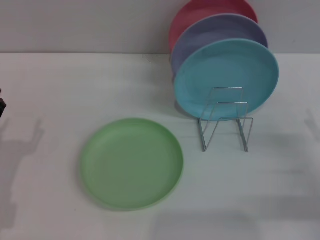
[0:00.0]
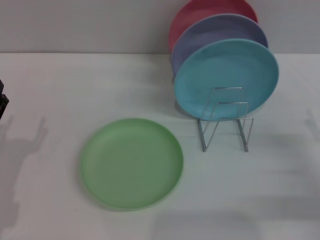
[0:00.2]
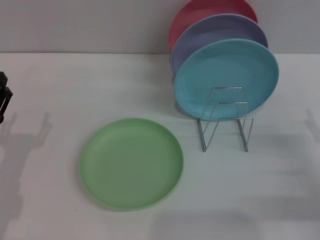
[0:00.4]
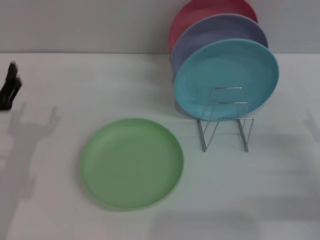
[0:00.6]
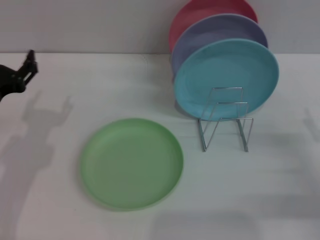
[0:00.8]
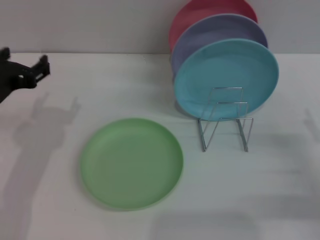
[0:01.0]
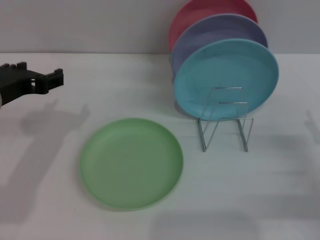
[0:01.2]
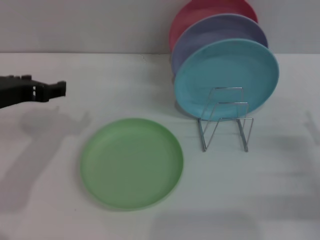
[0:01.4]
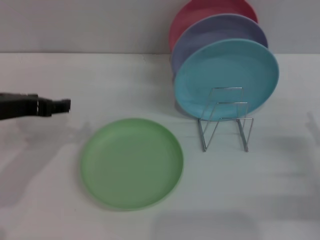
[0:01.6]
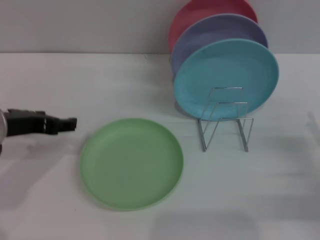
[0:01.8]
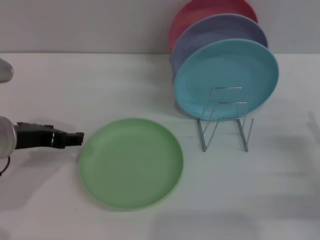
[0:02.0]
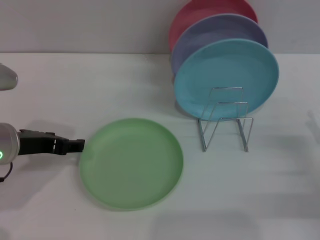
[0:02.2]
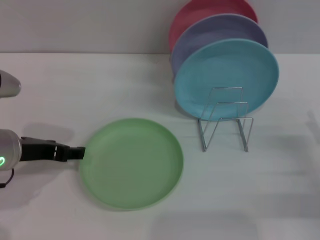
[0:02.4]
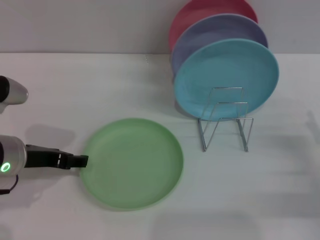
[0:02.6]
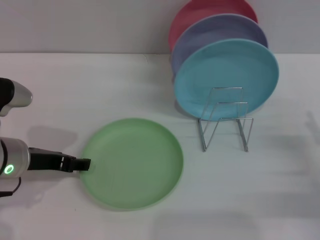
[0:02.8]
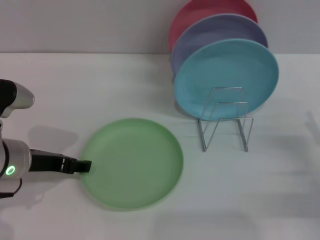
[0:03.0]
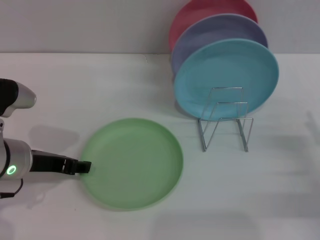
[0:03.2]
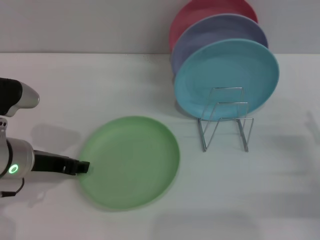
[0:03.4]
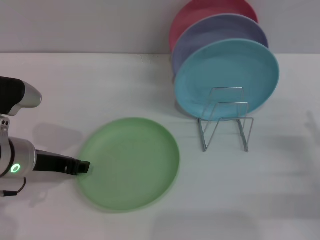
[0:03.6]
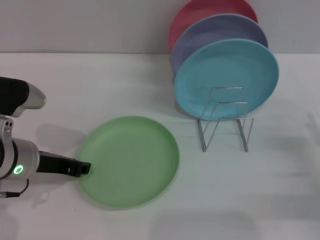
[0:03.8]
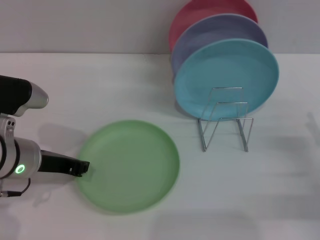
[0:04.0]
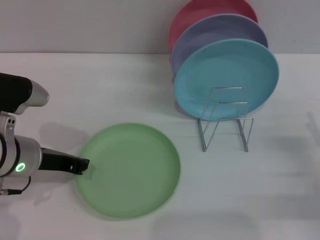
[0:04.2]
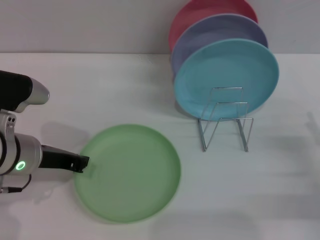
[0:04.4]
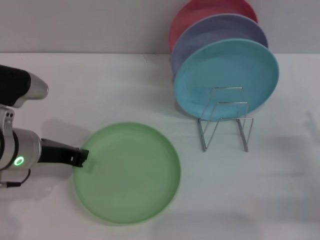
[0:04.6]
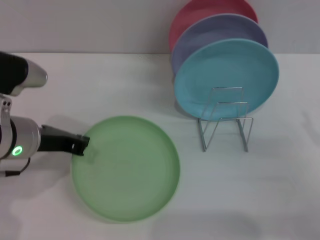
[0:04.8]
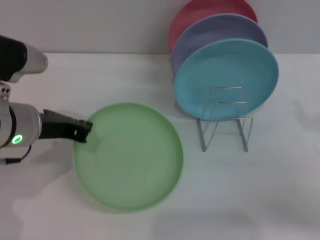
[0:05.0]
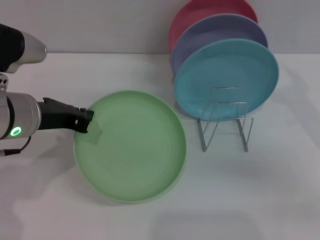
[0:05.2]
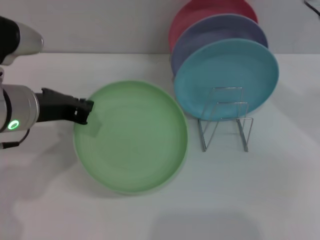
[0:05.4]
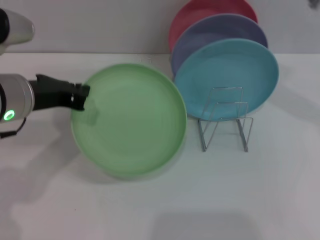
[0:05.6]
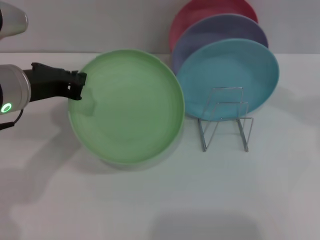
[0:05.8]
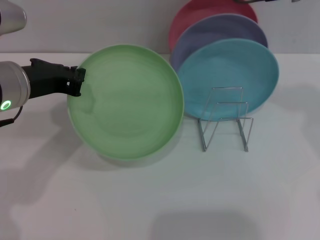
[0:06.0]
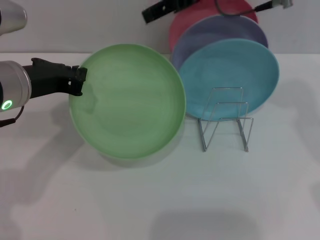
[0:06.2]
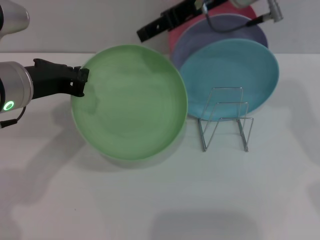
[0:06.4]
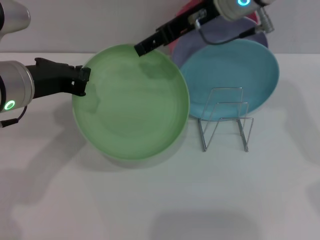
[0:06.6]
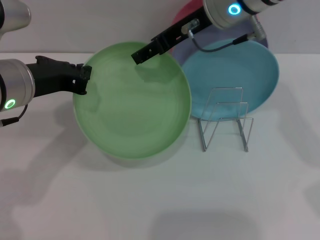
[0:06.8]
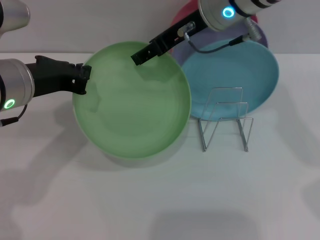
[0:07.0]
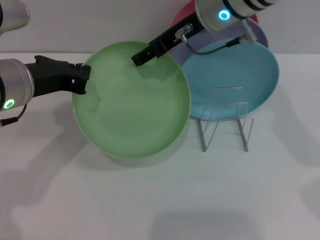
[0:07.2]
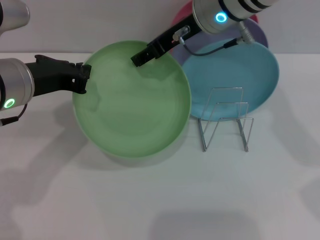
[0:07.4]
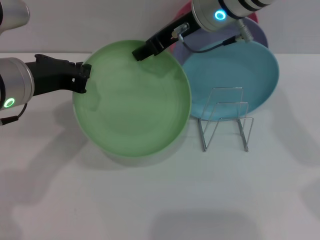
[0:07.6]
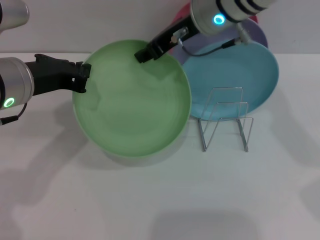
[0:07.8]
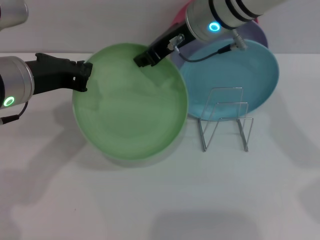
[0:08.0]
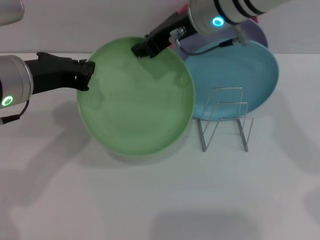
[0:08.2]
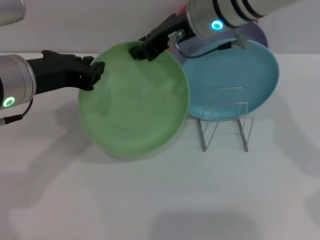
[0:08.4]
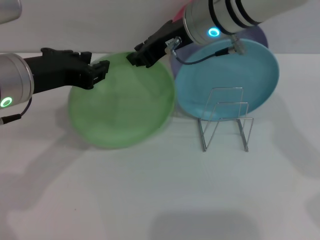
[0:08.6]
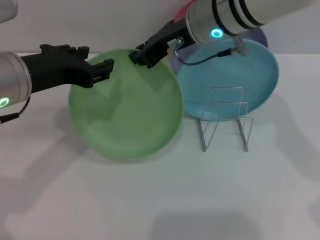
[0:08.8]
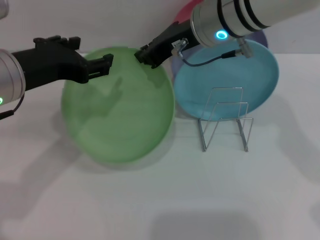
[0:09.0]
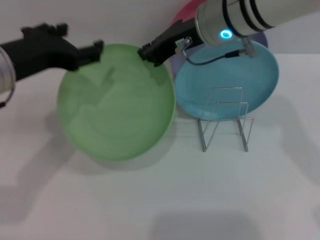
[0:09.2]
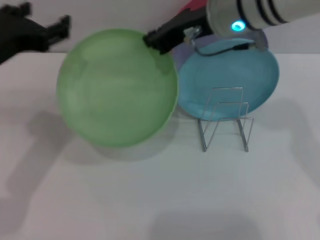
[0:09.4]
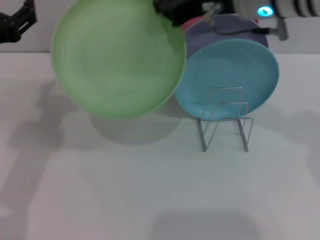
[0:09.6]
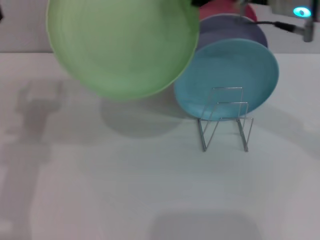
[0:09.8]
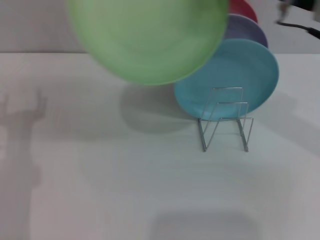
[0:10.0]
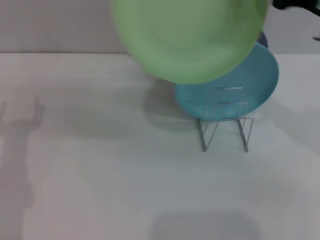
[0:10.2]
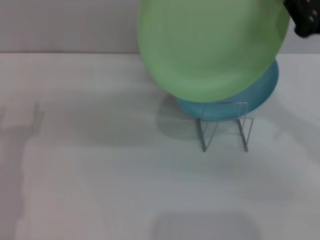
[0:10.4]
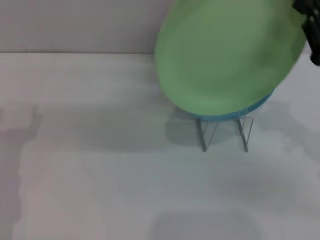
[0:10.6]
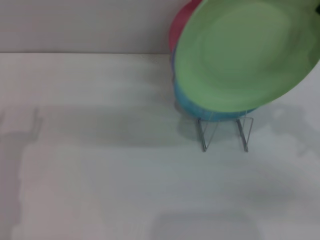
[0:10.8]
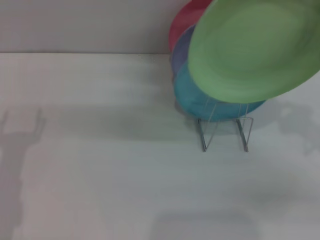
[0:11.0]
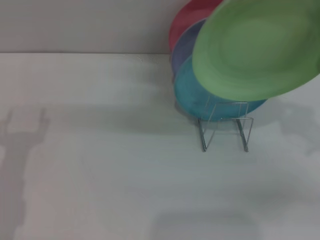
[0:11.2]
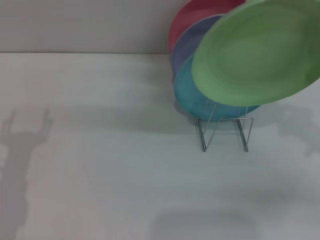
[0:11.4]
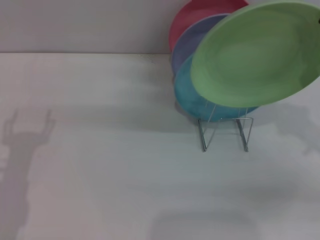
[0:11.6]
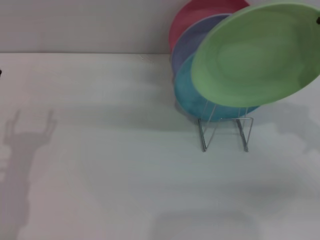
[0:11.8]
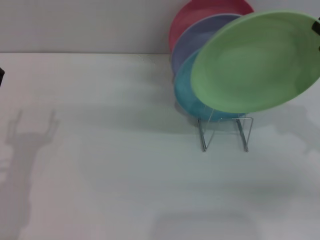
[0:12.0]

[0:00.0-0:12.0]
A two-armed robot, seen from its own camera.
Task of the whole recording: Grip the plate with one hand, pass it to the other, then set it on the shelf.
Step, 0:00.0 to 0:04.8: Pick up the plate with the left gripper.
Step, 0:05.0 to 0:09.6: Pass the plate from the left gripper to the right gripper.
0:00.0 to 0:01.6: The left gripper goes about 15 cm upward and forward.
0:01.6 to 0:03.0: The left gripper heads downward, covering approximately 5 cm.
0:03.0 to 0:04.4: The left gripper closes its fingers.
0:04.4 to 0:06.0: The left gripper goes approximately 10 cm upward; the right gripper moves upward, to the left and forward, about 40 cm.
0:06.0 to 0:07.6: The right gripper goes approximately 10 cm to the left and downward.
0:07.6 to 0:09.0: The left gripper opens up, while the right gripper closes its fingers.
0:09.0 to 0:10.4: The left gripper moves downward, to the left and backward, approximately 15 cm, while the right gripper heads to the right and backward, covering roughly 20 cm.
0:10.4 to 0:12.0: The right gripper shifts approximately 5 cm downward.

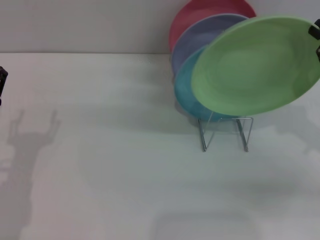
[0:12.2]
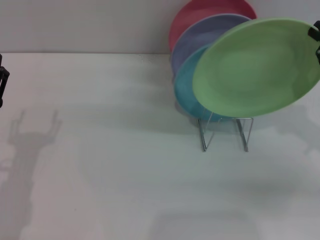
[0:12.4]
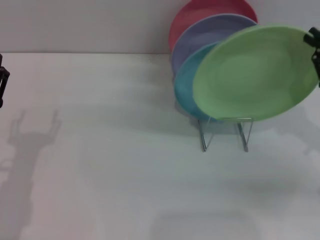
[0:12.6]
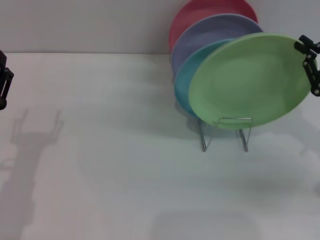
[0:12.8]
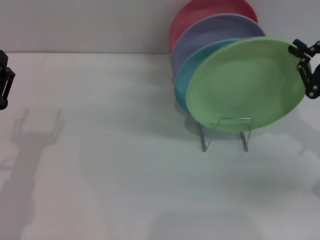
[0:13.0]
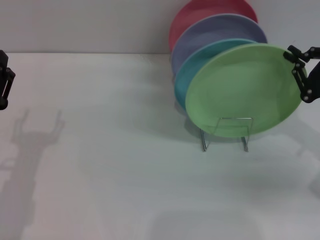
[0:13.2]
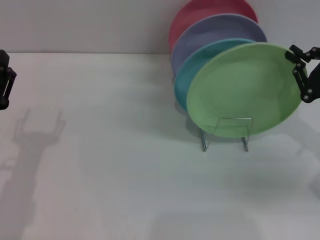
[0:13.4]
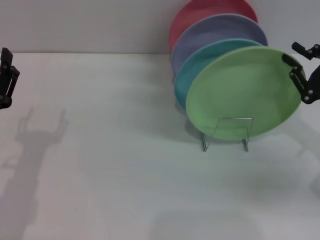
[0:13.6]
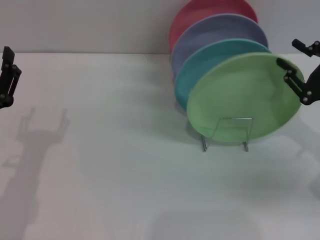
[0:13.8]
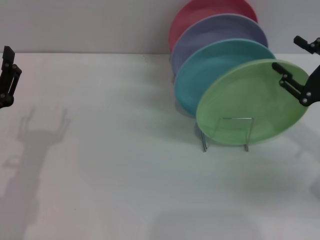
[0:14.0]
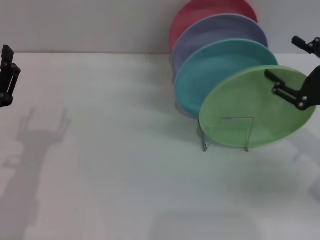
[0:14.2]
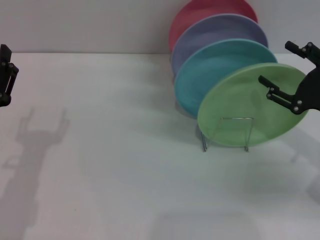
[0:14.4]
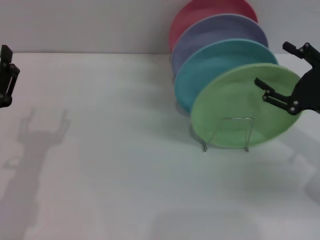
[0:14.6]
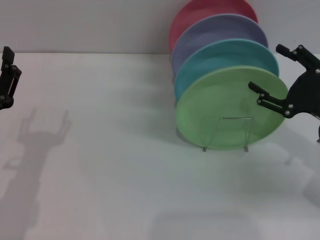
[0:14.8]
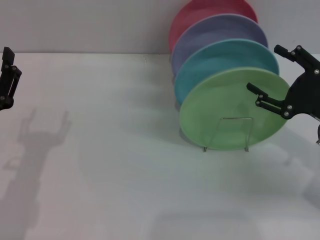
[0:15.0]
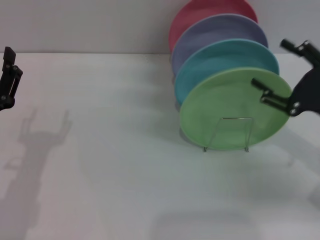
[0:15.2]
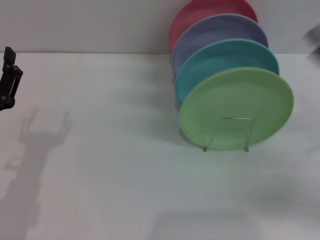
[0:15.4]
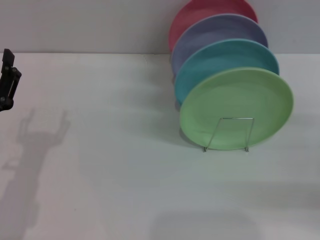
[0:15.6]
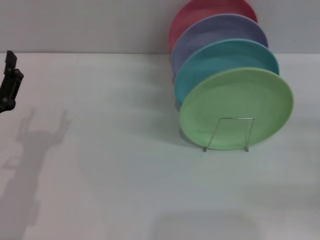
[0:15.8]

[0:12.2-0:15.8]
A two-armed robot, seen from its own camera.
Task of the whole recording: Grip the plate with one hand, pass it to the other, then set it on the shelf.
0:12.2 to 0:14.0: The right gripper opens its fingers.
0:14.0 to 0:15.8: The right gripper heads to the right, covering roughly 10 cm, and opens.

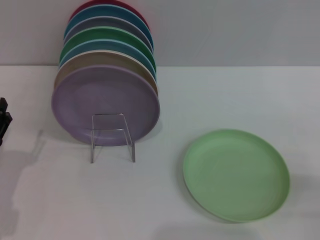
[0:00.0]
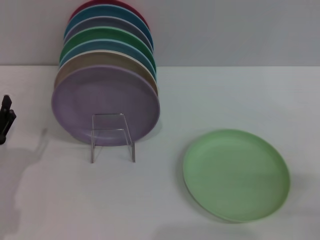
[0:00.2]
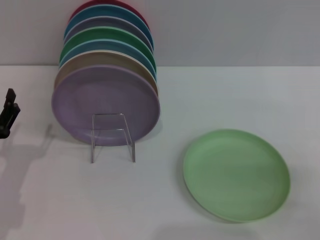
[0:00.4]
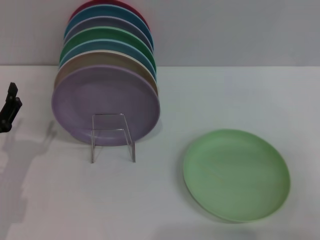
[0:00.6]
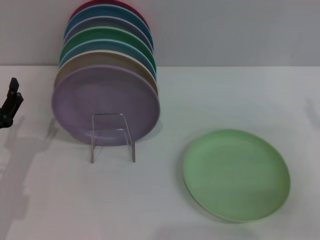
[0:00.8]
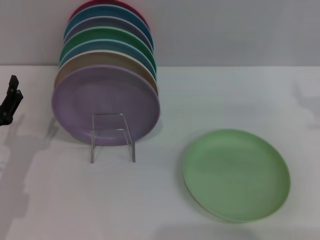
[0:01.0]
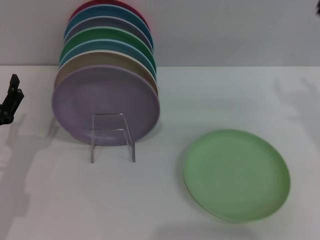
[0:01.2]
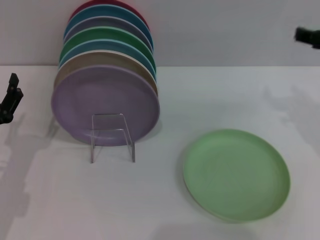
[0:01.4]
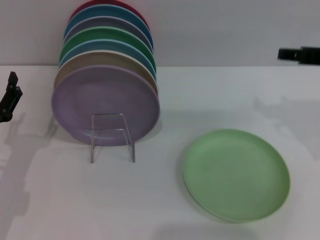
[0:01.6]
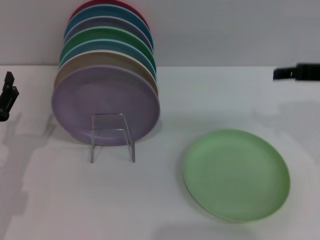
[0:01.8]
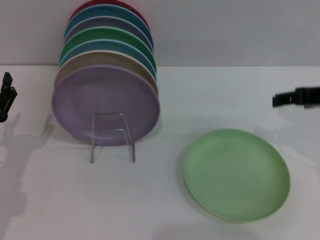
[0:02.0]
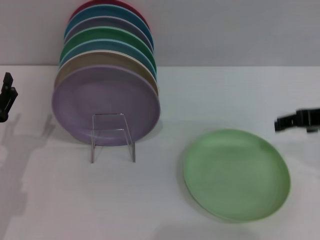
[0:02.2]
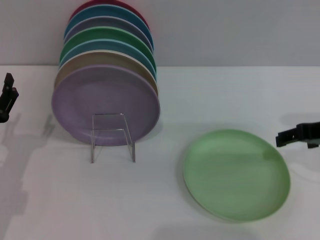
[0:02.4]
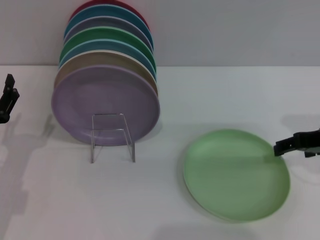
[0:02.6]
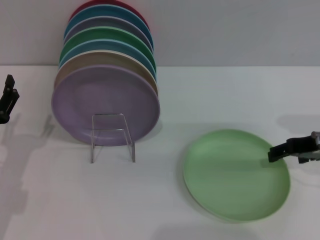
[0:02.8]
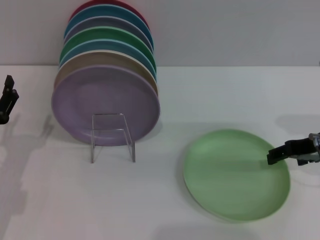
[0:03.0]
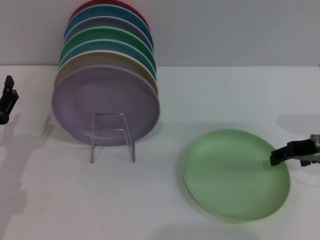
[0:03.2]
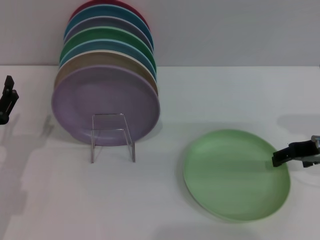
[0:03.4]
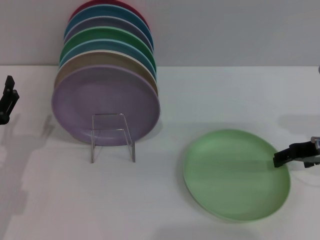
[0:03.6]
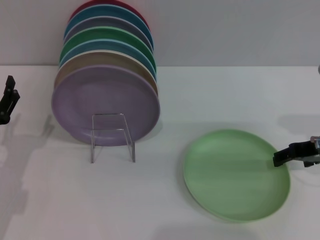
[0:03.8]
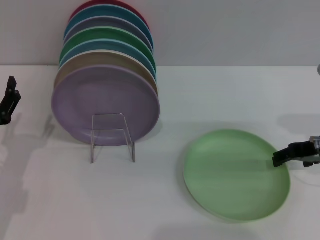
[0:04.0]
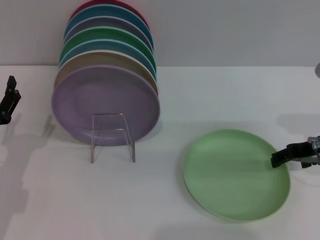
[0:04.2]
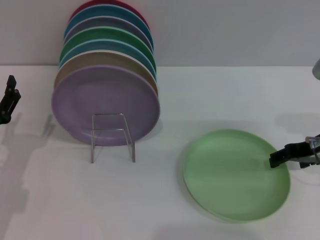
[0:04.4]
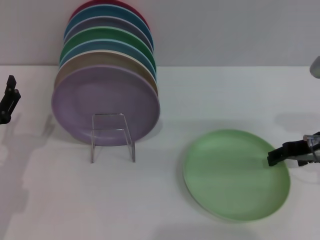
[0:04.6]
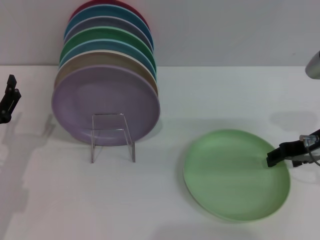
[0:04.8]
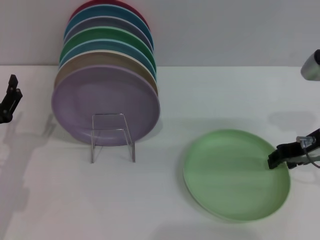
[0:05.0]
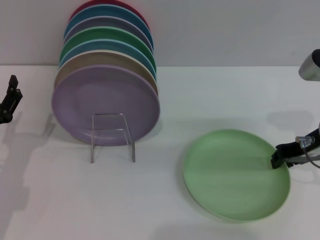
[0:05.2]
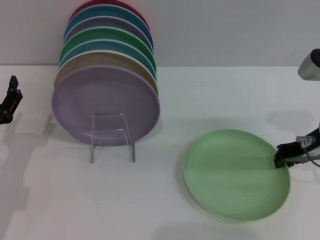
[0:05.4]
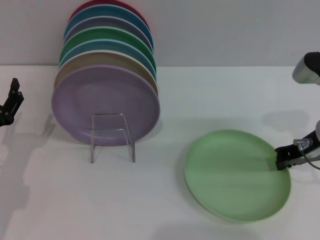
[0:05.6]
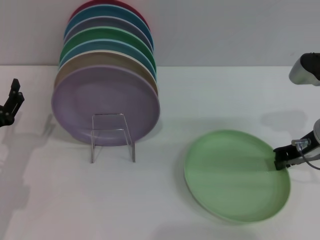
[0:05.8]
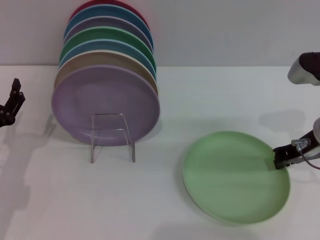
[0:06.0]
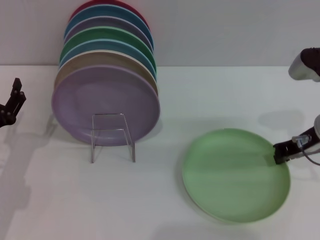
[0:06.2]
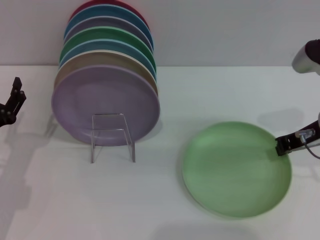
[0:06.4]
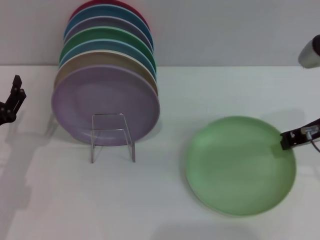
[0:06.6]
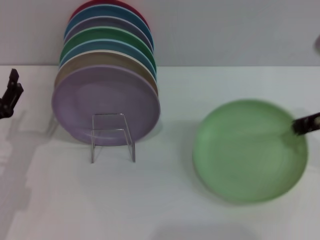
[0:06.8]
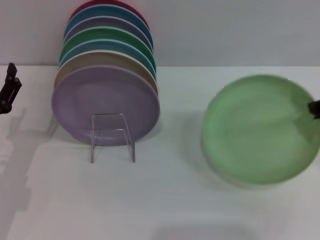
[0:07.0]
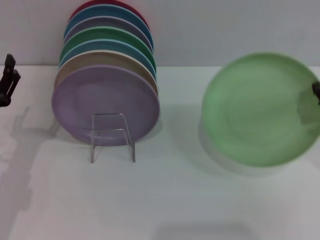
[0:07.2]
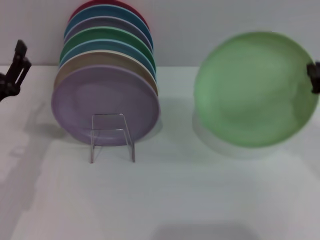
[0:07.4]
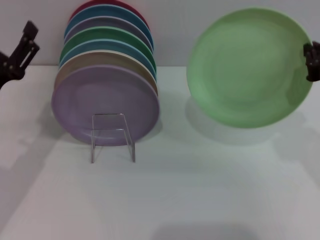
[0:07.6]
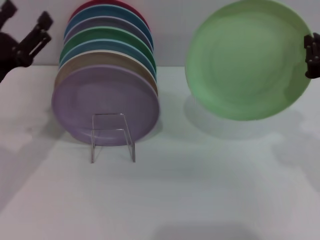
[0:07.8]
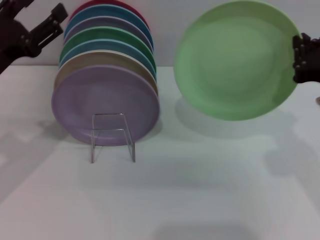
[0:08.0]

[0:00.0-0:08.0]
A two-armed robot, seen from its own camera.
Task of the whole recording: Grip the plate with one hand, pass it to the other, then set it on the shelf.
Step, 0:00.0 to 0:07.0: Pick up the plate with the right gripper.
0:00.0 to 0:01.6: The right gripper travels upward, forward and to the left by approximately 25 cm.
0:01.6 to 0:03.2: The right gripper moves downward, some 5 cm.
0:03.2 to 0:04.8: There are only small adjustments of the grippers.
0:04.8 to 0:06.4: The right gripper closes.
0:06.4 to 0:08.0: The right gripper shifts some 10 cm backward. The left gripper moves upward, about 10 cm.
